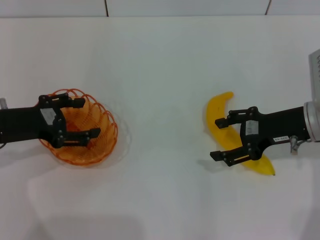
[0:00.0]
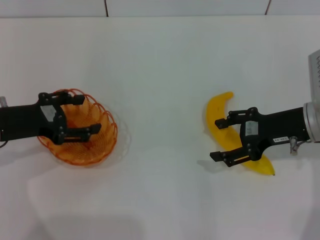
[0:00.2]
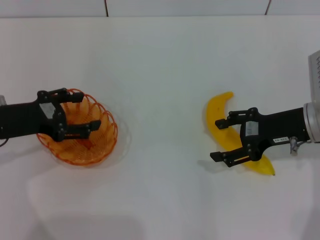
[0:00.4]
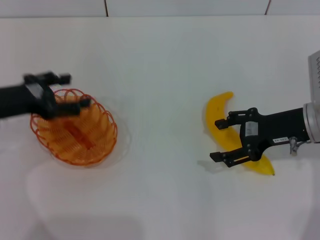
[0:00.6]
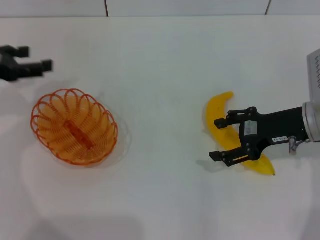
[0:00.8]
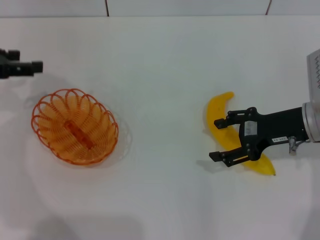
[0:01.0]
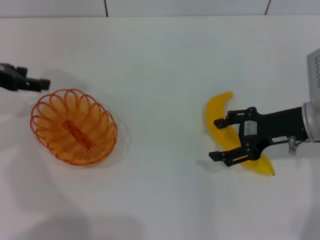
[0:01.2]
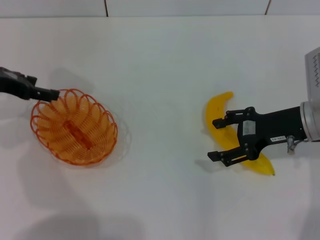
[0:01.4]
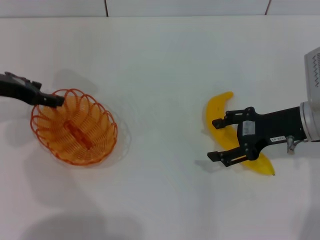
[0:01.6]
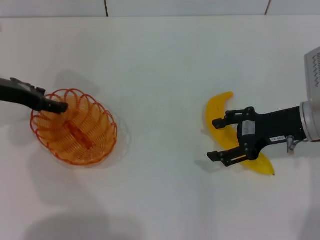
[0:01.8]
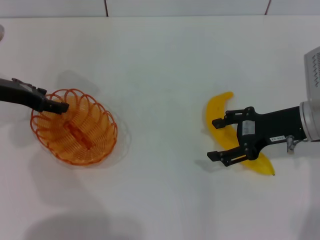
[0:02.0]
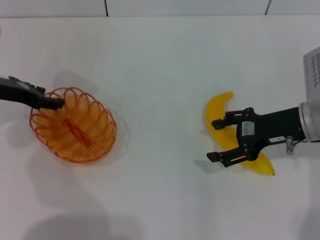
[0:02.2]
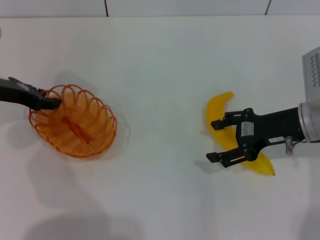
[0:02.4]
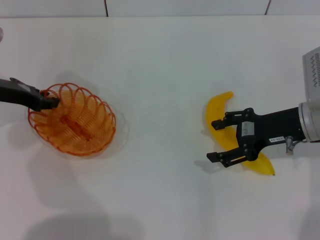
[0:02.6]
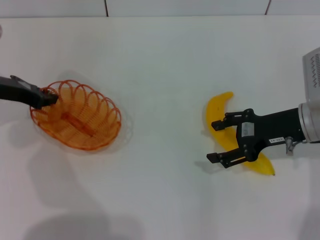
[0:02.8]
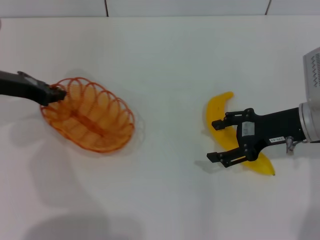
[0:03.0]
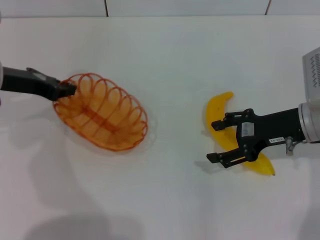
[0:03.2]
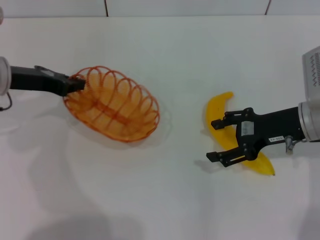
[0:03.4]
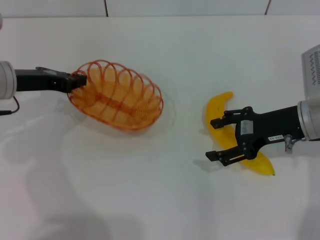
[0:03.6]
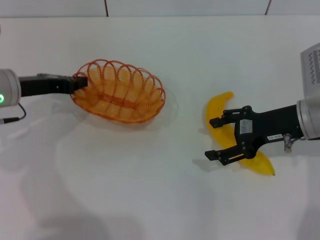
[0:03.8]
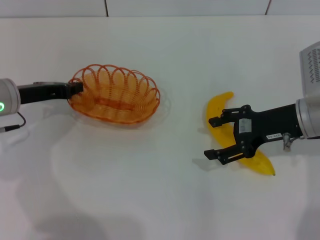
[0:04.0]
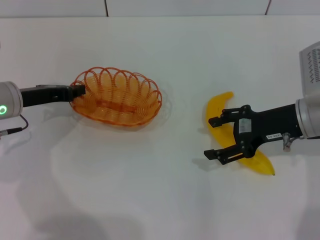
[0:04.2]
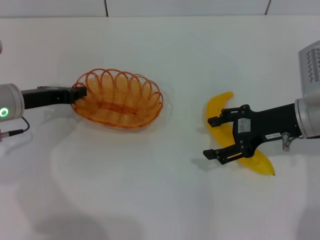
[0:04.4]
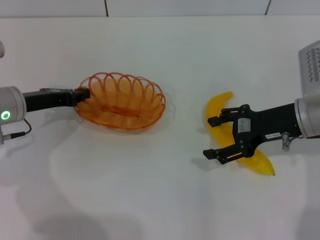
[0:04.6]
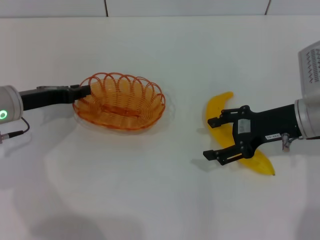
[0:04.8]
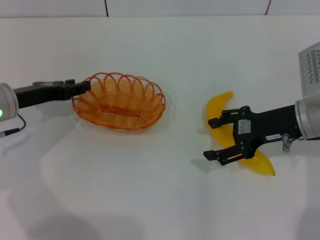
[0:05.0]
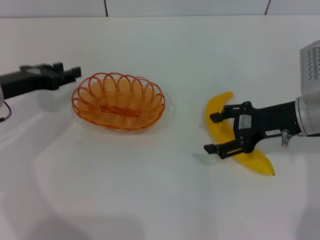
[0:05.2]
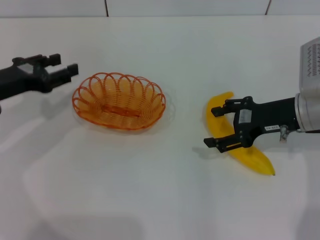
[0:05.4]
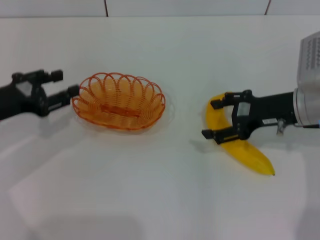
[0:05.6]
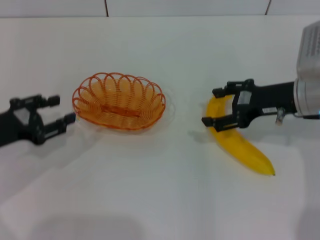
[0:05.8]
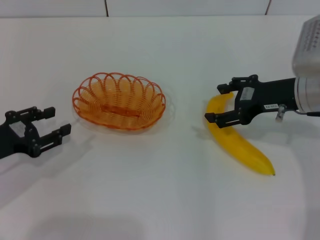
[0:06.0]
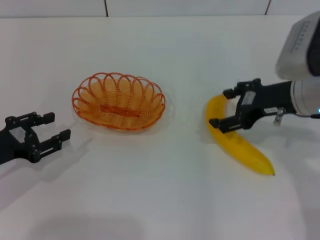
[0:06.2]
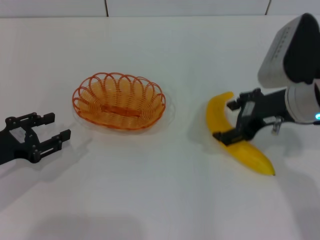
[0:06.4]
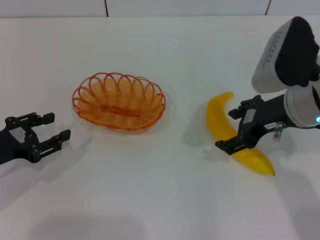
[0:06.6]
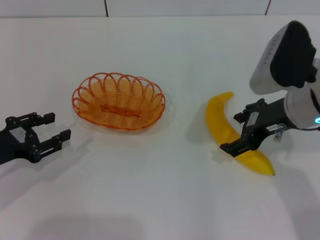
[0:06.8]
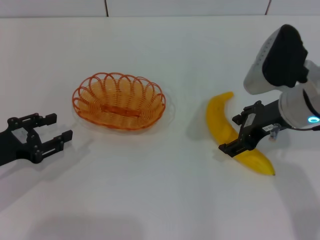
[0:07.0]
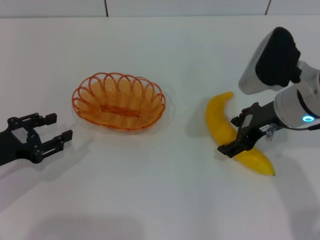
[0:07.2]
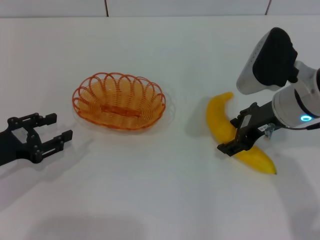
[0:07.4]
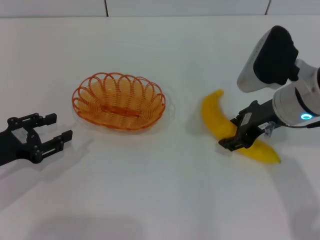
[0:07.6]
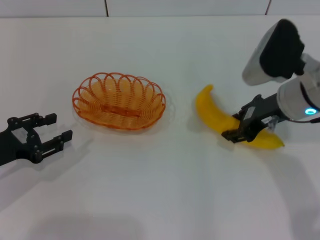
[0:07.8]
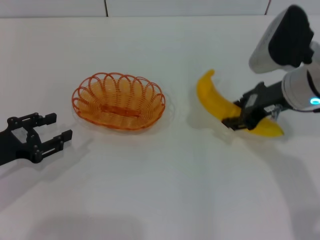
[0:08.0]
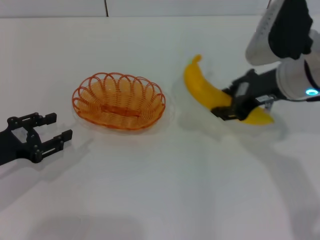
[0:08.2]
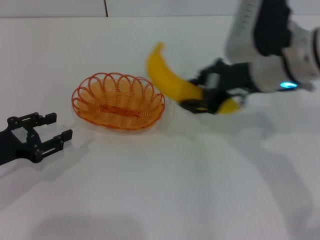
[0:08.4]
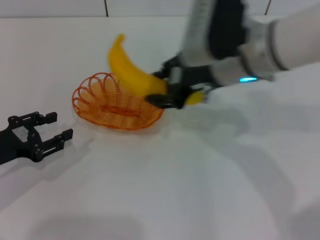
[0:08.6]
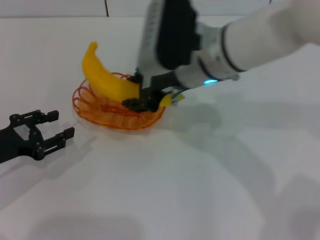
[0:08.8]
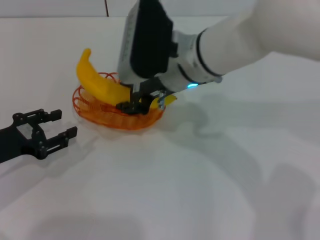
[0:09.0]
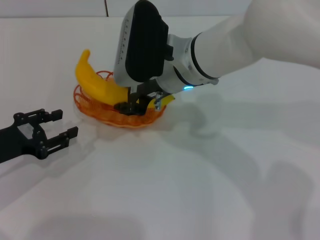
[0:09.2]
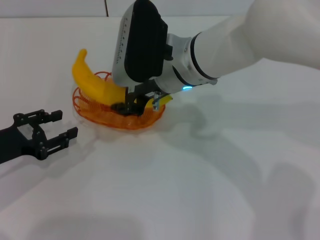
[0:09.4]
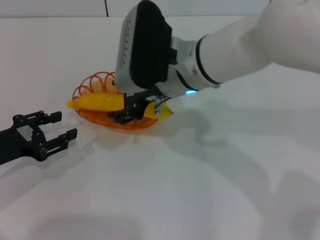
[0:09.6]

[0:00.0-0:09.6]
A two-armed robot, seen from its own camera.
Step, 0:00.0 to 0:02.8: Pick up the basket with the left gripper.
Step, 0:03.0 to 0:05.2: Place the basket in the center of view with the left gripper.
Step, 0:05.4 to 0:07.8: Pick up the banana with the right gripper.
0:00.0 to 0:01.6: The left gripper heads forward, covering approximately 10 cm.
0:01.6 to 0:03.2: The left gripper closes its fingers.
0:03.2 to 0:04.8: The left gripper moves downward, about 5 cm.
0:04.8 to 0:06.4: The left gripper is displaced backward and to the left by roughly 10 cm, and opens, while the right gripper changes place by approximately 5 cm.
0:06.4 to 0:08.0: The right gripper closes its fingers.
0:08.0 to 0:09.6: The right gripper is displaced to the left by about 15 cm.

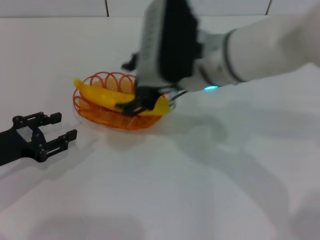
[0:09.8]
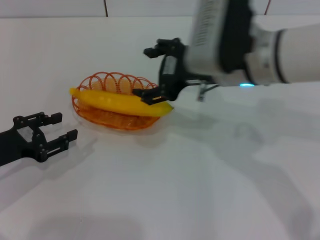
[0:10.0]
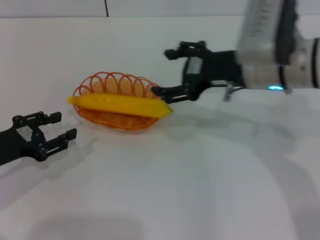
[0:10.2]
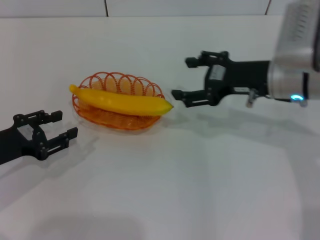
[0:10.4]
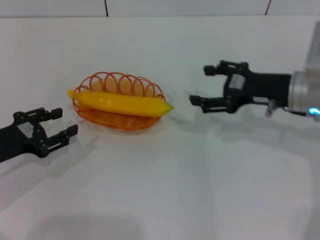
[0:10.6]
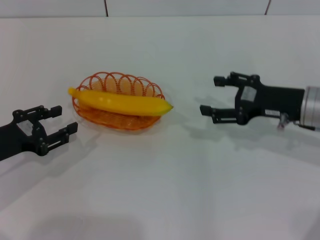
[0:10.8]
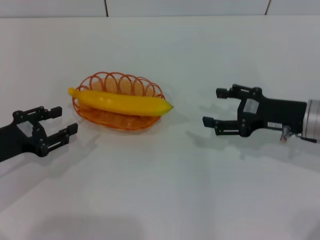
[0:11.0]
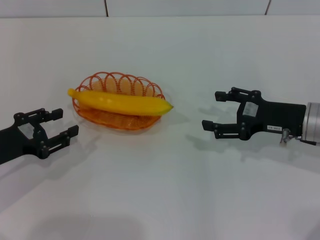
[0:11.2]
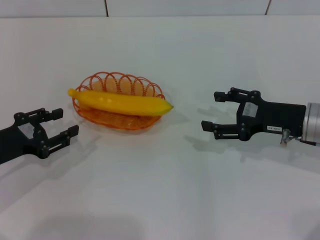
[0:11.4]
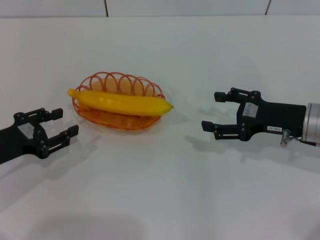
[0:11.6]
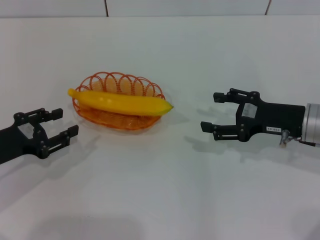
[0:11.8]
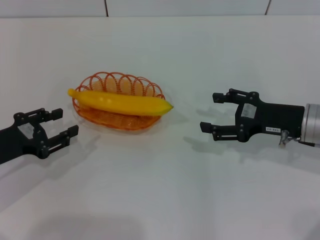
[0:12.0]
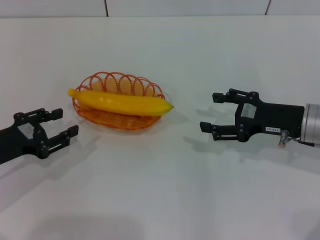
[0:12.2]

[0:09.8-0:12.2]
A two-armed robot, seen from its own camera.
0:09.8 to 0:11.0: The right gripper shifts roughly 20 cm to the right and downward.
0:11.0 to 0:12.2: Both grippers stay put.
